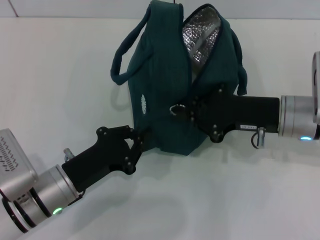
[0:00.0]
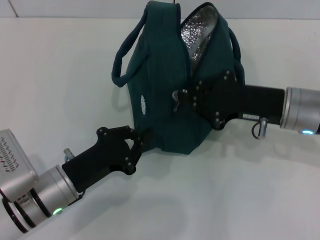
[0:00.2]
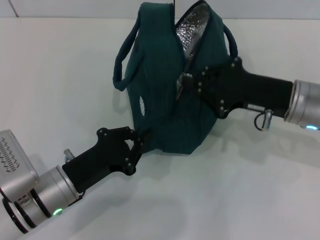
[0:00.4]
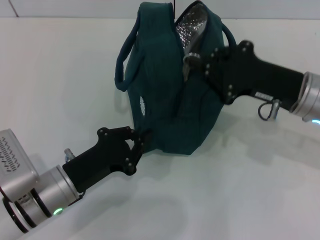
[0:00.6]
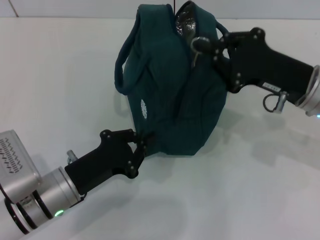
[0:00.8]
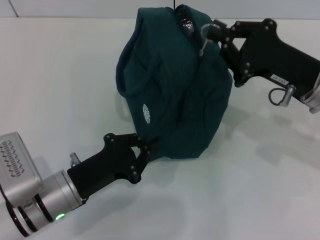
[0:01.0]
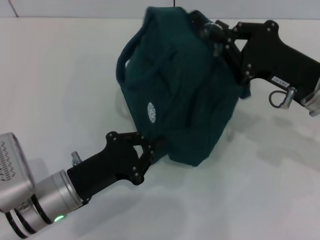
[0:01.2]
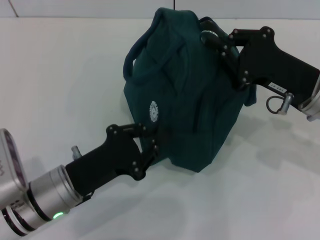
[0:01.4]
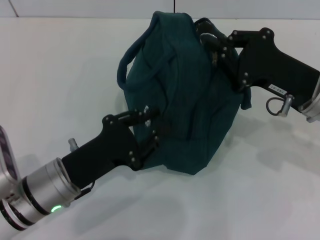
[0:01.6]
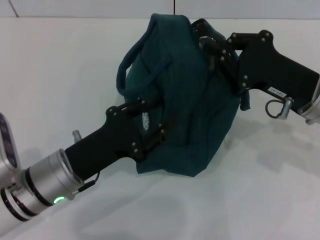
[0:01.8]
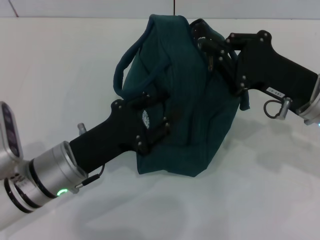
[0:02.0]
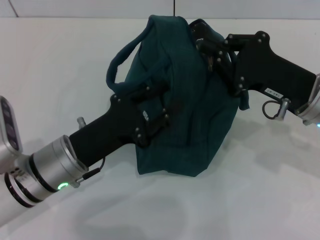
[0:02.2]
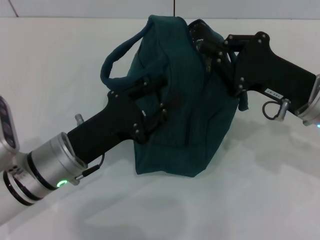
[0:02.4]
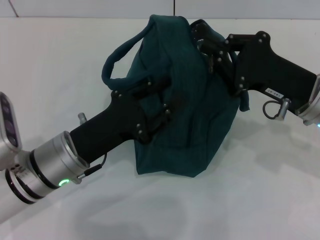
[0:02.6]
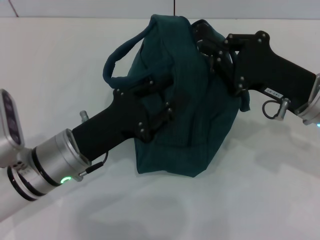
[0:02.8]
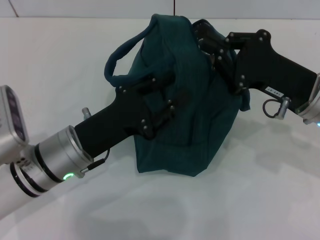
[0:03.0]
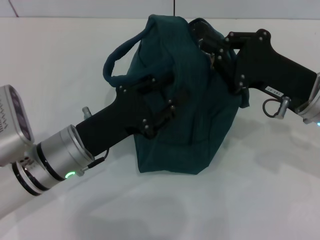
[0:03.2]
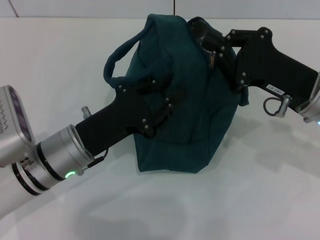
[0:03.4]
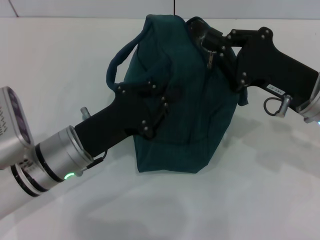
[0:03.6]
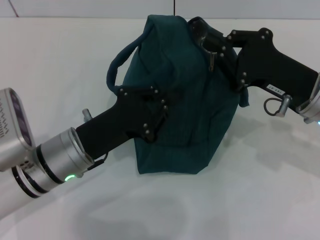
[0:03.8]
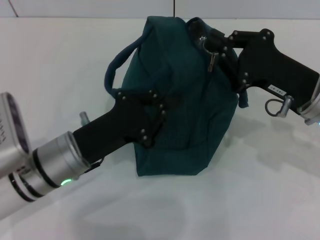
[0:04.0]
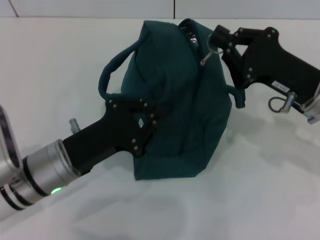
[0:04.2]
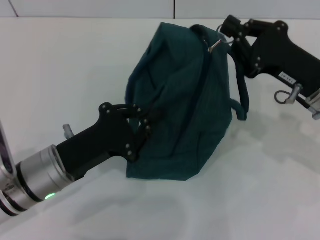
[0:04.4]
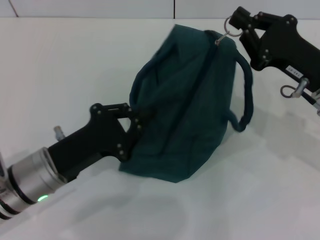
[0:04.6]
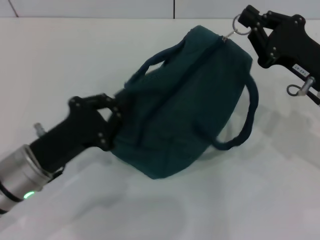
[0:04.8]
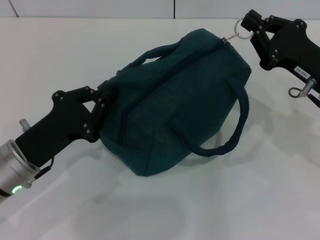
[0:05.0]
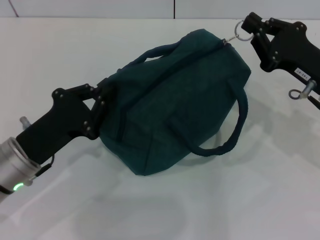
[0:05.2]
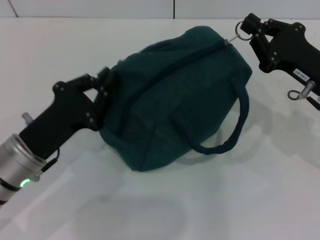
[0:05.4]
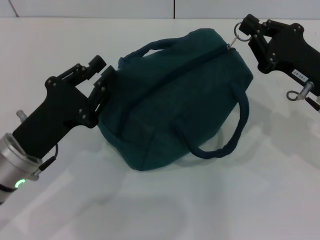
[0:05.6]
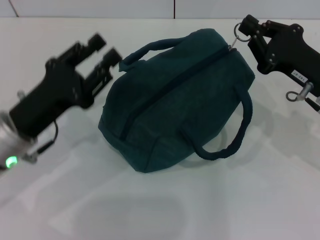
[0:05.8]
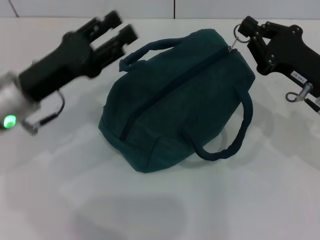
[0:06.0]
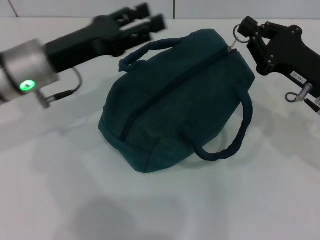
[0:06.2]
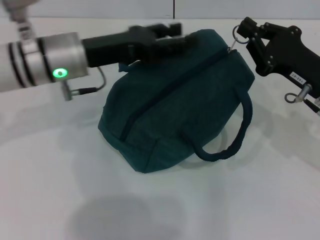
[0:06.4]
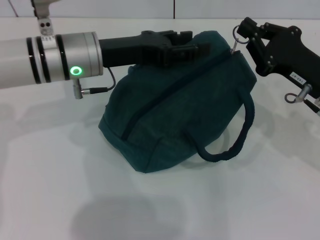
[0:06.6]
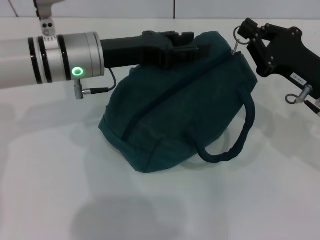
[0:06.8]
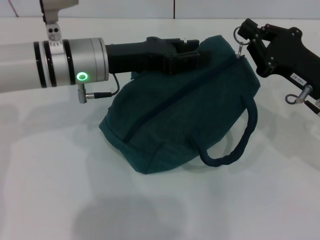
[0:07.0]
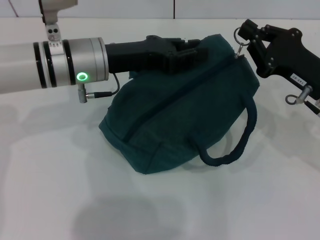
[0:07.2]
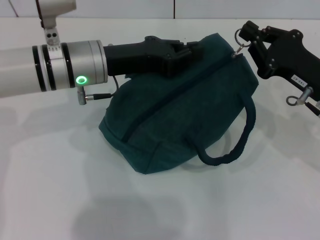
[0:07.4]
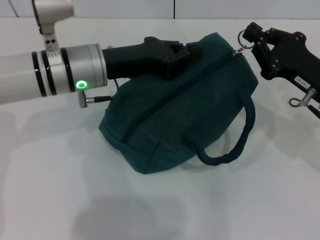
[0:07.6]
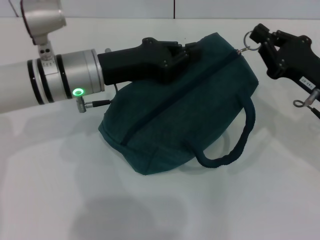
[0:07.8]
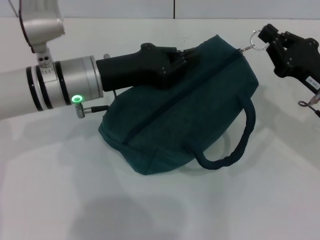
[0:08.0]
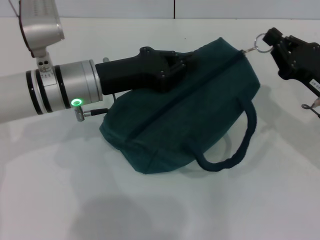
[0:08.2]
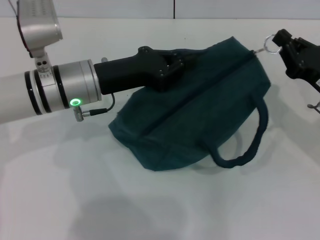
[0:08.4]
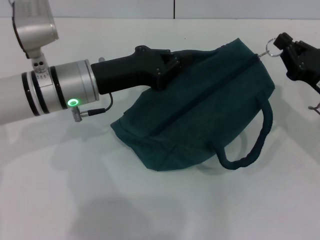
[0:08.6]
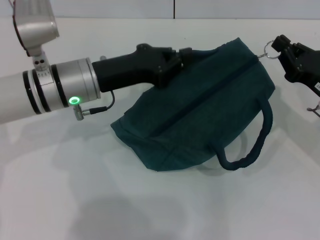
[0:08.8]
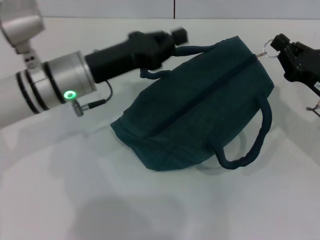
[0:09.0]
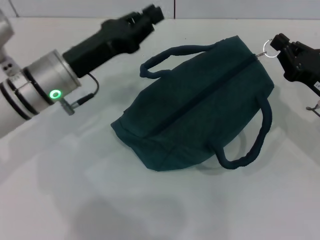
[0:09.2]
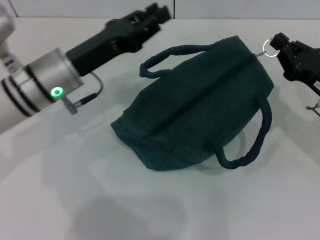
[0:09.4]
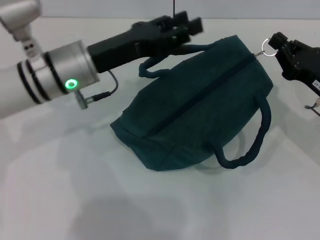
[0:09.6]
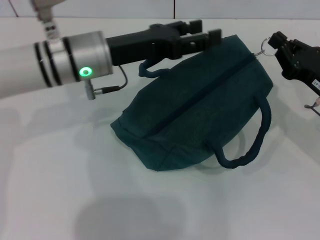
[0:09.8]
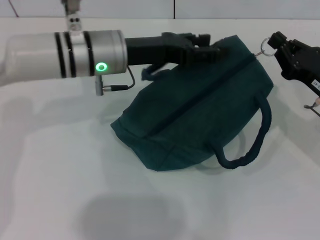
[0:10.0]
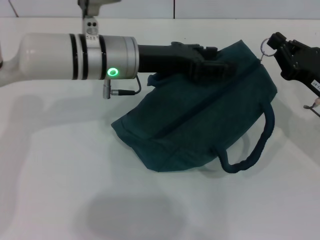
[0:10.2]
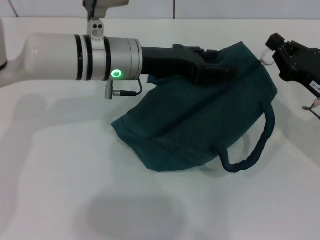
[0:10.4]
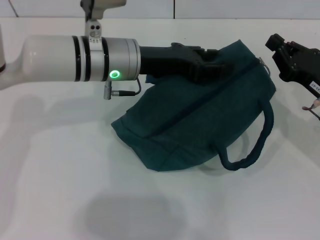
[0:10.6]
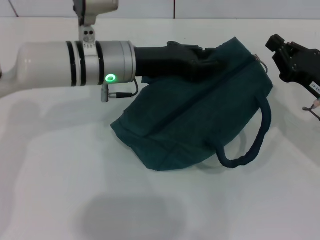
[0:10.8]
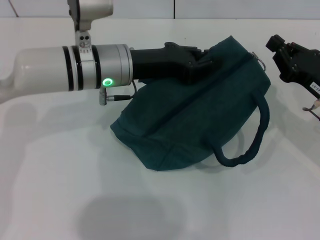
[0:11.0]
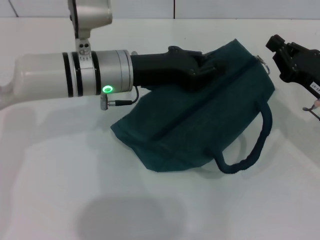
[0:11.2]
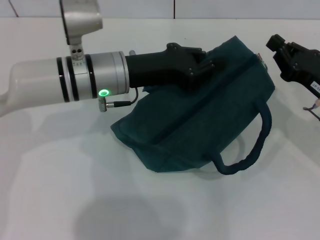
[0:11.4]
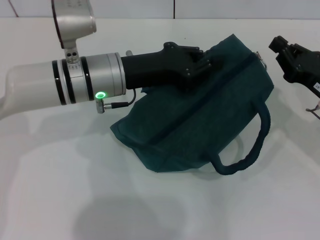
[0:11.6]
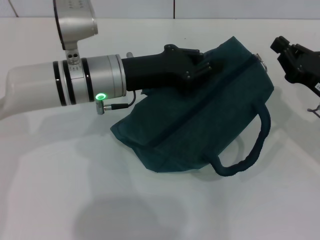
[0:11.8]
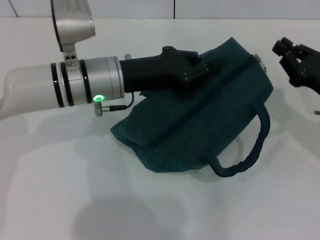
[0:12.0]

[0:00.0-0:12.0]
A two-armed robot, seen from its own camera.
0:01.6 to 0:03.0: The grippers stay close to where they were, moving slightly.
0:03.0 to 0:04.4: The left gripper closes its fingers.
0:04.4 to 0:06.0: The left gripper is displaced upward and forward by roughly 10 cm, and opens its fingers.
0:06.0 to 0:07.6: The left gripper travels to the right and forward by some 10 cm, and closes.
0:09.0 to 0:10.4: The left gripper travels to the right by roughly 5 cm, and opens up.
0:10.4 to 0:12.0: The left gripper closes up.

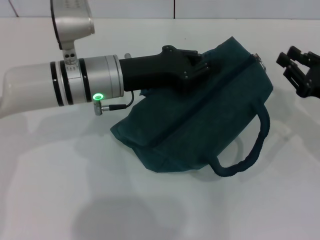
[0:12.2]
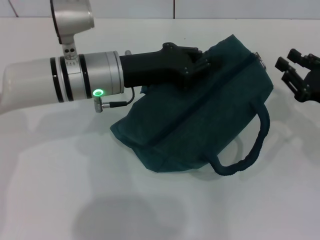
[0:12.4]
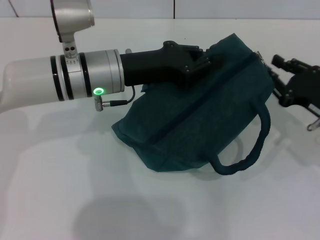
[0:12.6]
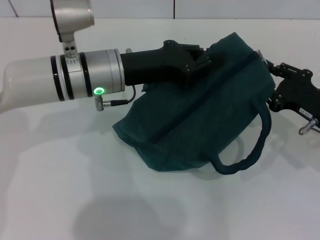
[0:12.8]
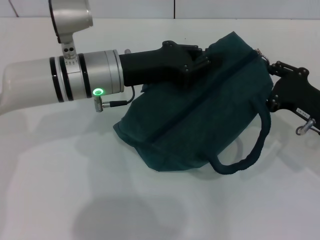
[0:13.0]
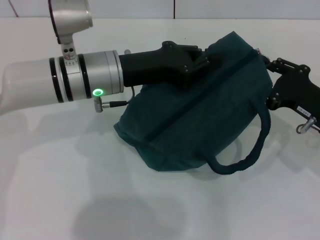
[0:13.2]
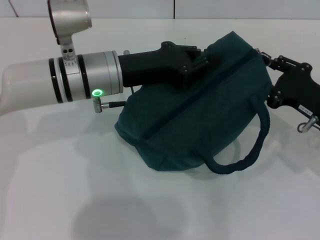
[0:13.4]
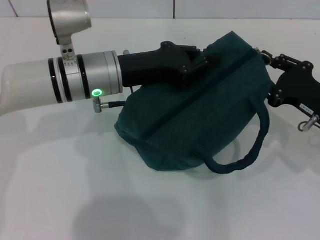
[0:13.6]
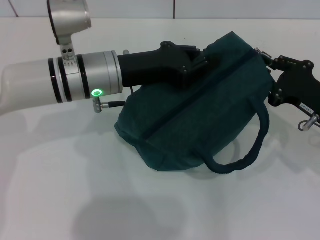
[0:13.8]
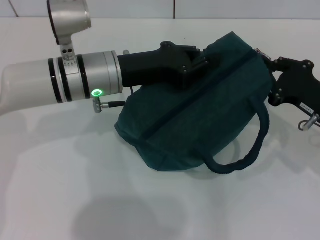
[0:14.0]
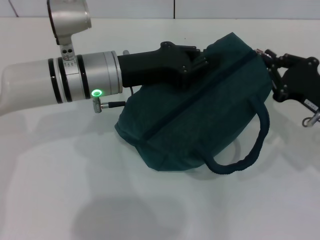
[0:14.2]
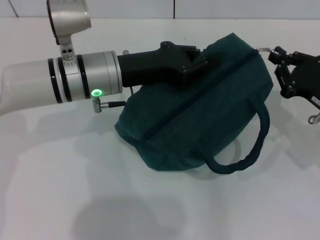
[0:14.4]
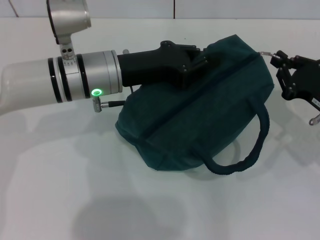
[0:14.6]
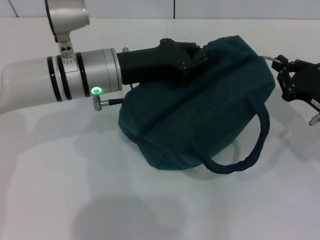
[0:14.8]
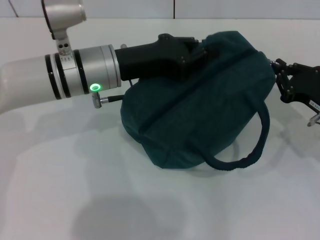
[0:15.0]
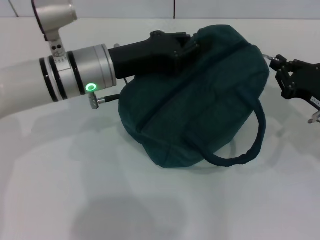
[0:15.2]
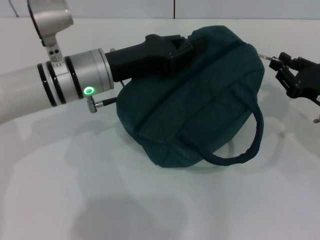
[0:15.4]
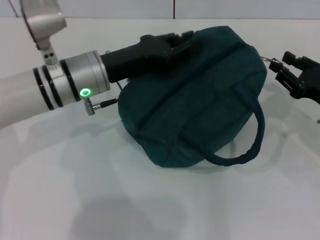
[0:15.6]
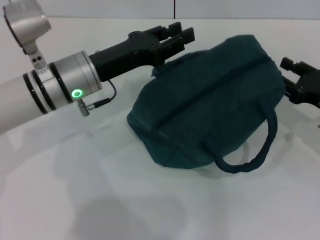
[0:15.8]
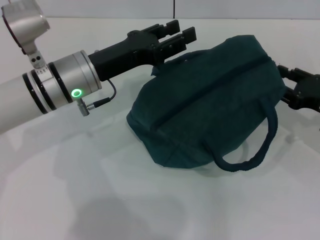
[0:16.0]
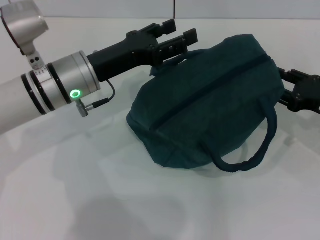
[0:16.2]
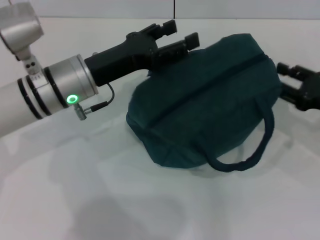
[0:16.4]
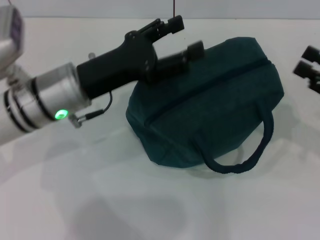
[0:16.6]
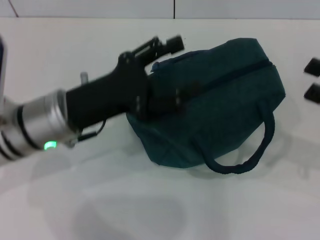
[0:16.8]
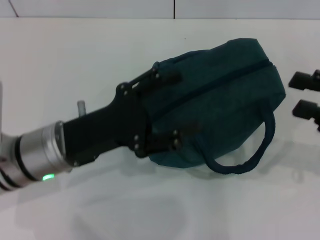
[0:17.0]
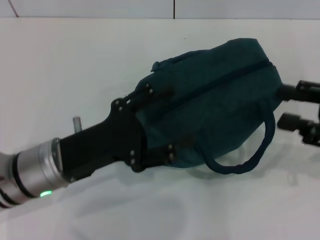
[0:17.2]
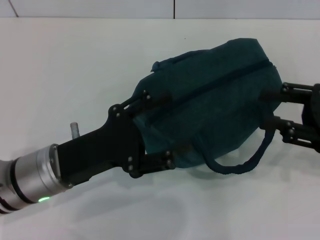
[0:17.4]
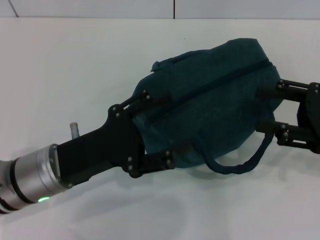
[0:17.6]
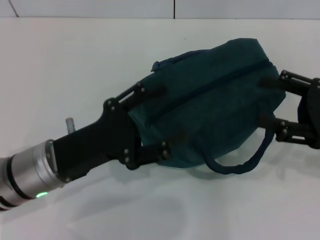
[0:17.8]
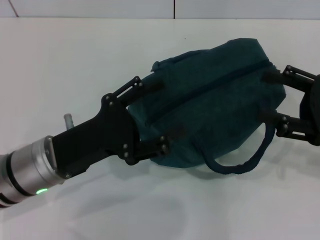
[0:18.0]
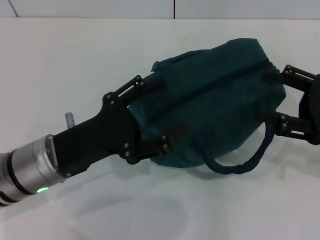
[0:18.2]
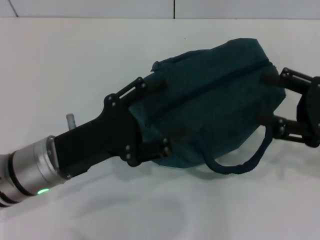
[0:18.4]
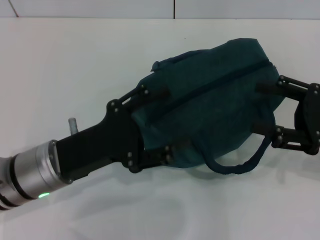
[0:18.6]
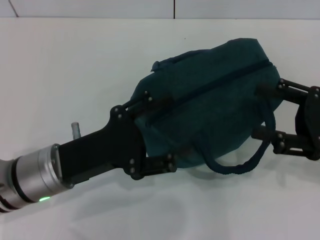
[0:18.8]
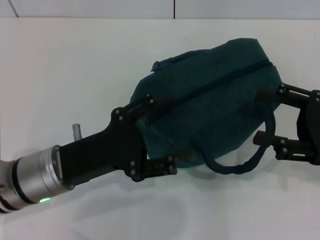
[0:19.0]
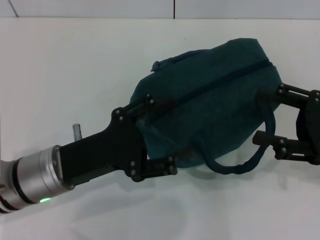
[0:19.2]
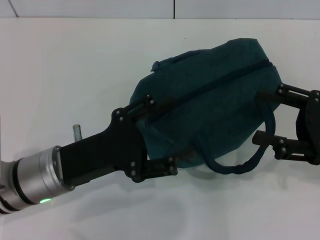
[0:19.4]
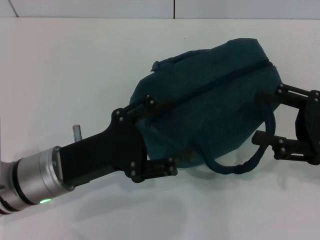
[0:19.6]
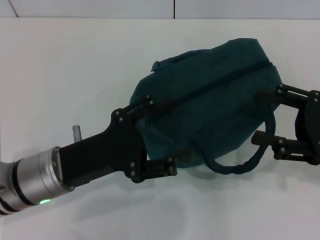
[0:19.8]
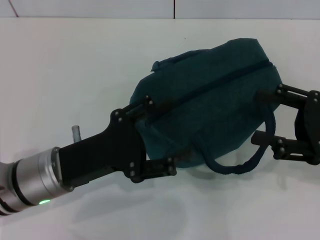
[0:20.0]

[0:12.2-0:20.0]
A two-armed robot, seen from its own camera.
Step, 0:12.2 to 0:15.6: Hold the lunch bag with your left hand.
Step, 0:16.0 to 0:16.2: Zip up the lunch bag with your right hand.
0:12.2 to 0:15.4: The grippers move only a little.
0:15.4 to 0:16.8: The left gripper travels backward by about 10 cm, and opens its fingers. The right gripper moves upward and backward, some 10 cm, and opens up.
0:16.8 to 0:18.4: The left gripper changes place by approximately 5 cm.
0:18.4 to 0:20.0: Both grippers stay put.

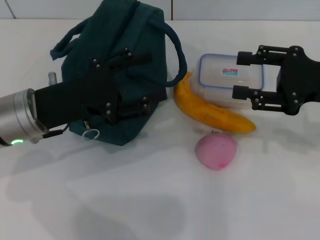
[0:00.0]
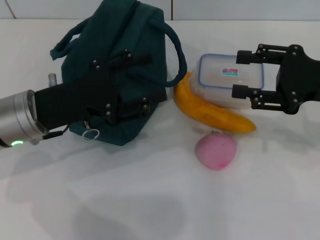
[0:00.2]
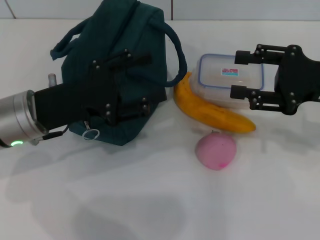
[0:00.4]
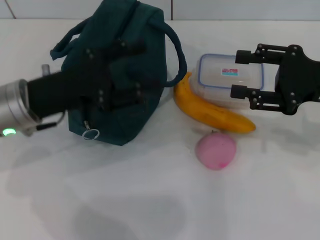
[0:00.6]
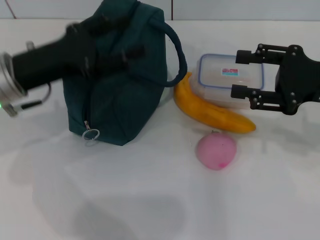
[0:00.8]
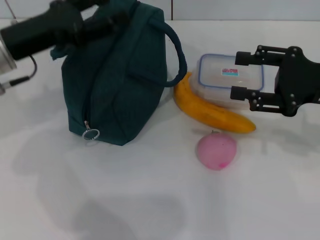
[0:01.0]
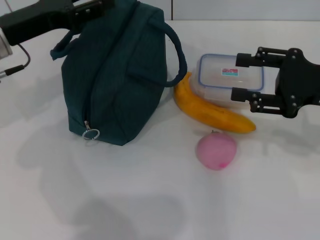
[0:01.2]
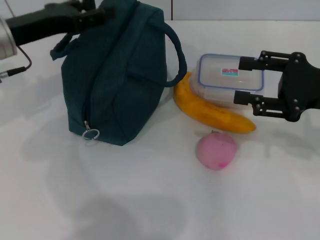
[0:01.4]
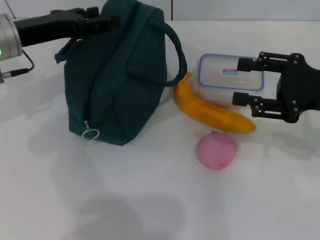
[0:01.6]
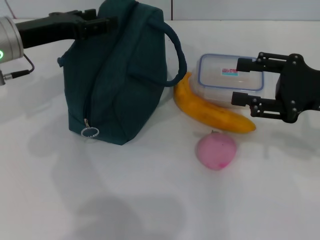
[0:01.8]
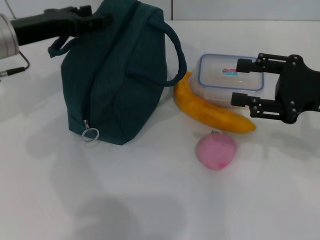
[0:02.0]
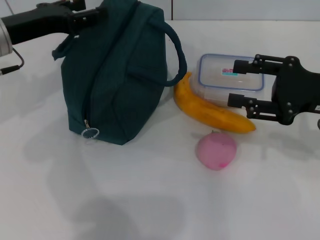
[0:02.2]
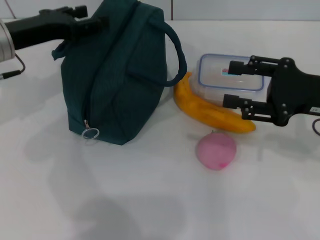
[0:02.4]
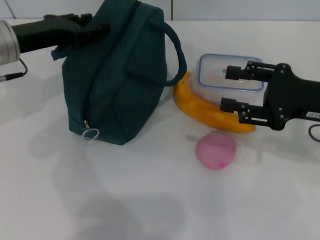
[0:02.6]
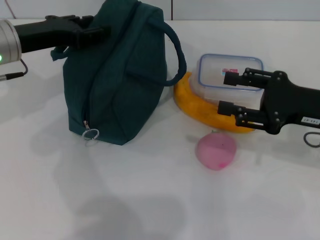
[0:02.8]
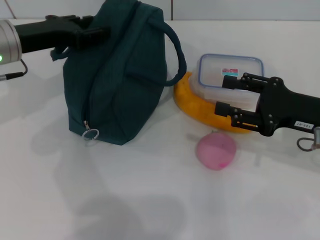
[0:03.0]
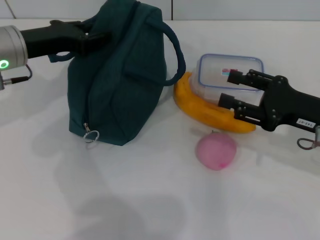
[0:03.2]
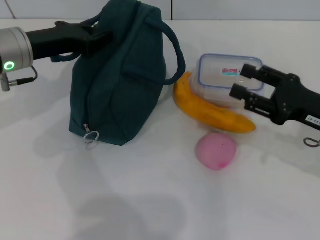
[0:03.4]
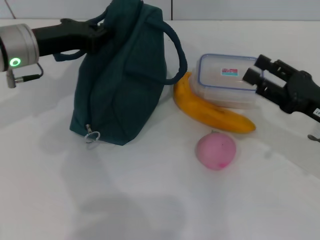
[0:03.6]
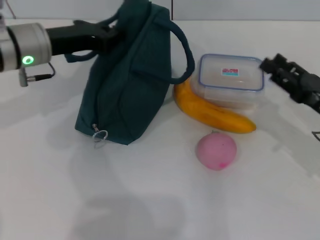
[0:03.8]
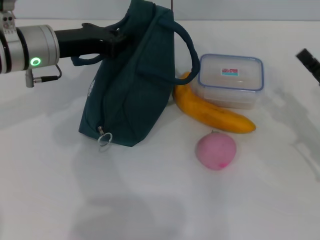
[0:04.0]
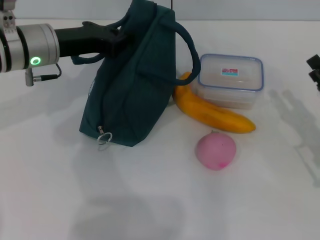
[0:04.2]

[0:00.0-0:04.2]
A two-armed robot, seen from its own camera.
0:00.0 to 0:01.4: The left gripper goes some 10 cm forward.
0:01.4 to 0:02.8: The grippers stay close to where they were, moving slightly.
0:02.8 to 0:04.2: The right gripper travels downward by approximately 10 cm, while the left gripper closes.
